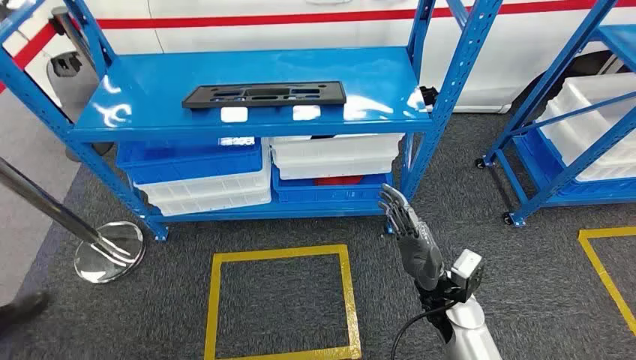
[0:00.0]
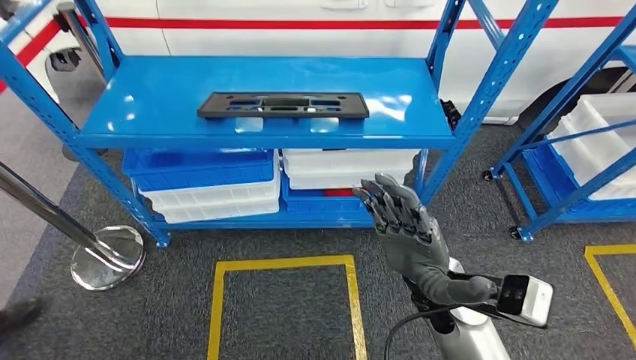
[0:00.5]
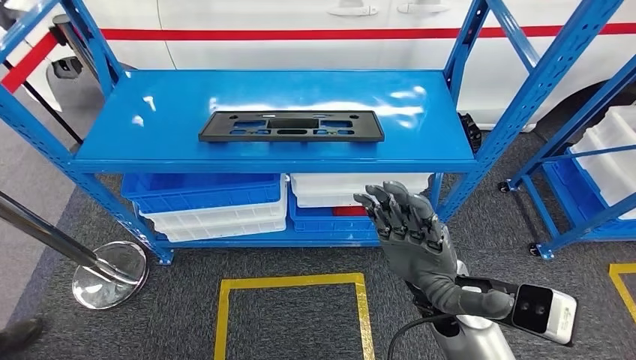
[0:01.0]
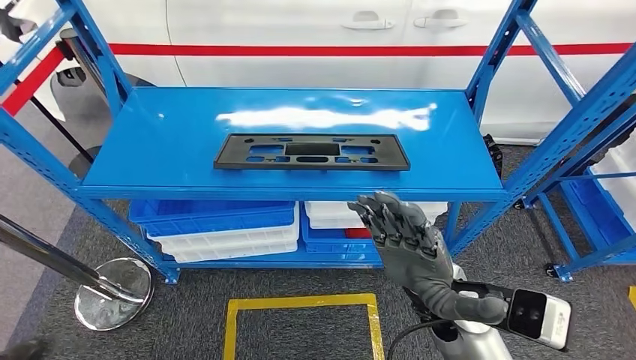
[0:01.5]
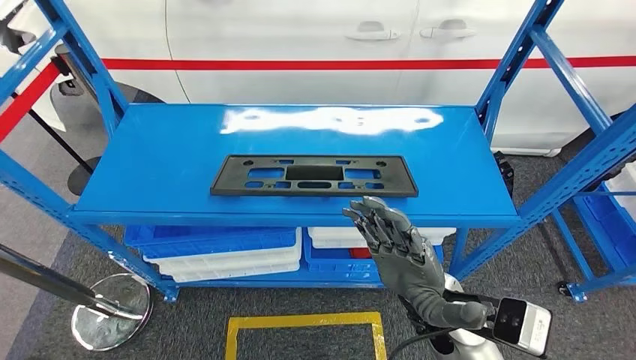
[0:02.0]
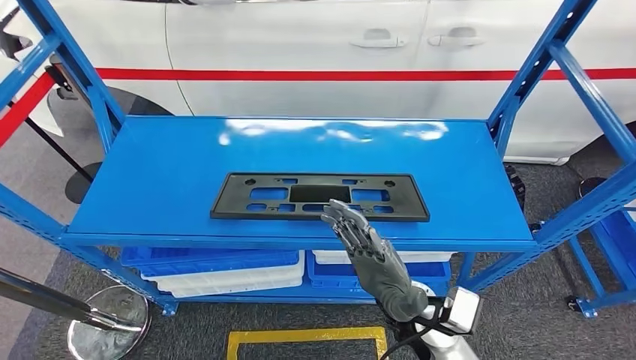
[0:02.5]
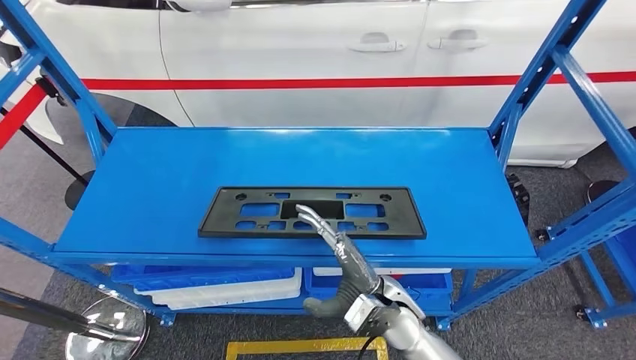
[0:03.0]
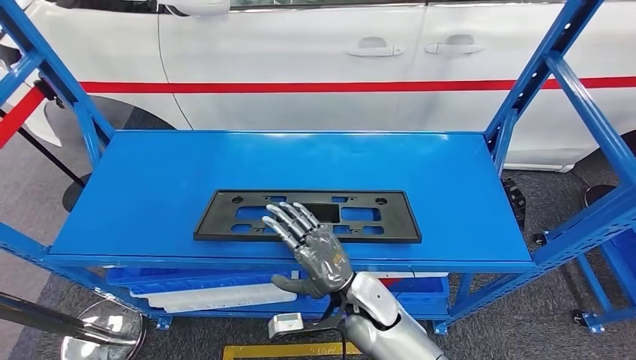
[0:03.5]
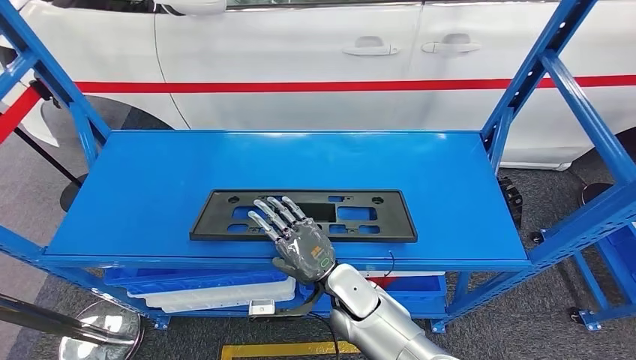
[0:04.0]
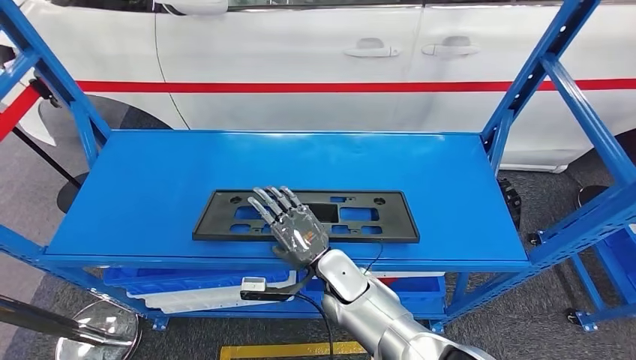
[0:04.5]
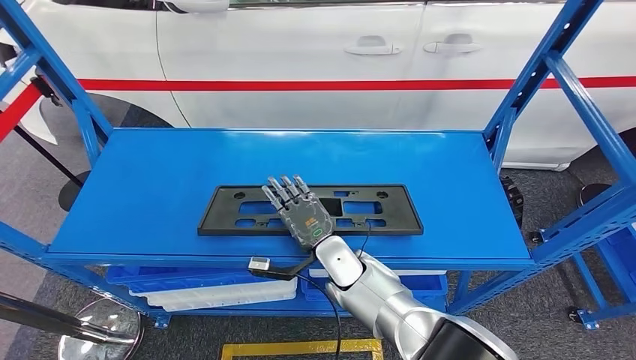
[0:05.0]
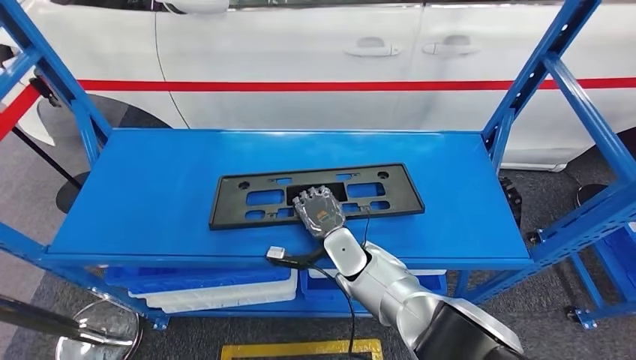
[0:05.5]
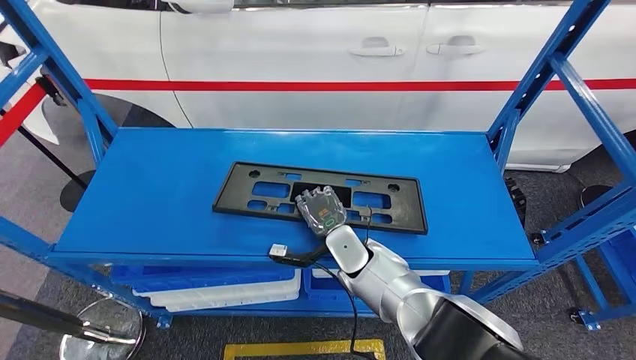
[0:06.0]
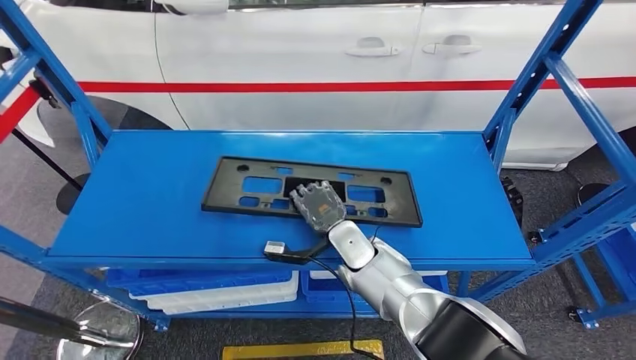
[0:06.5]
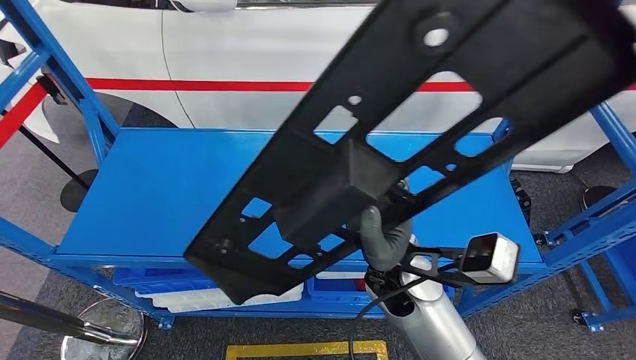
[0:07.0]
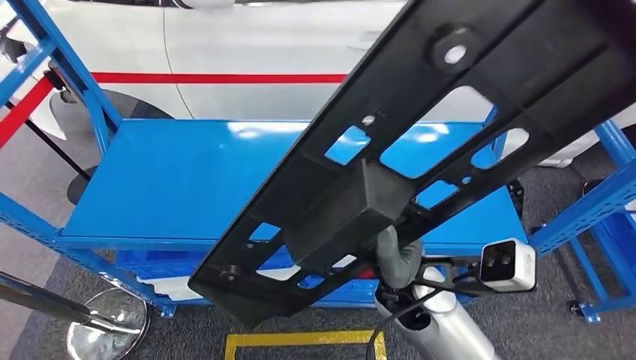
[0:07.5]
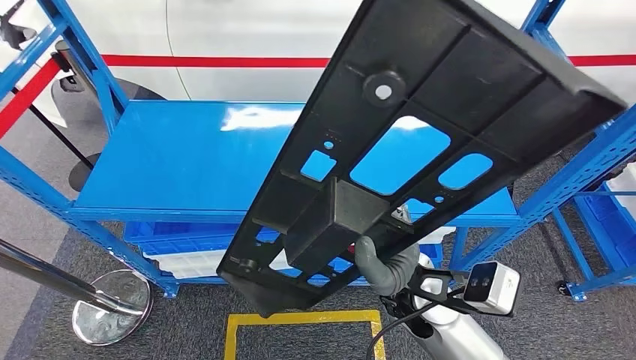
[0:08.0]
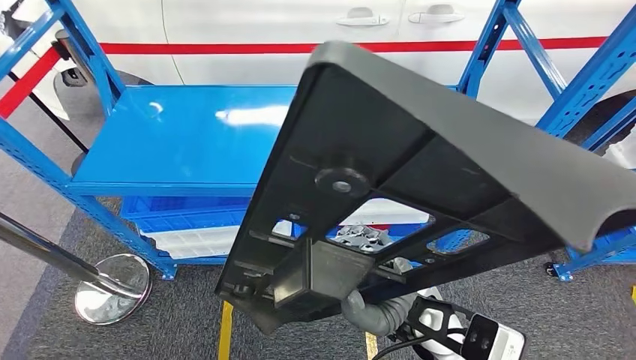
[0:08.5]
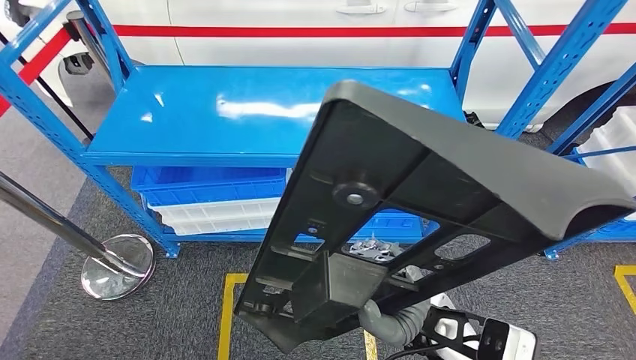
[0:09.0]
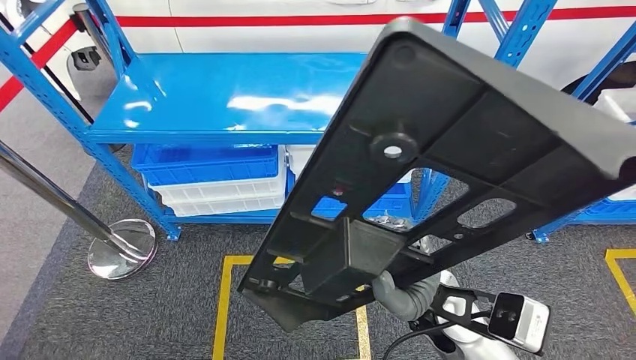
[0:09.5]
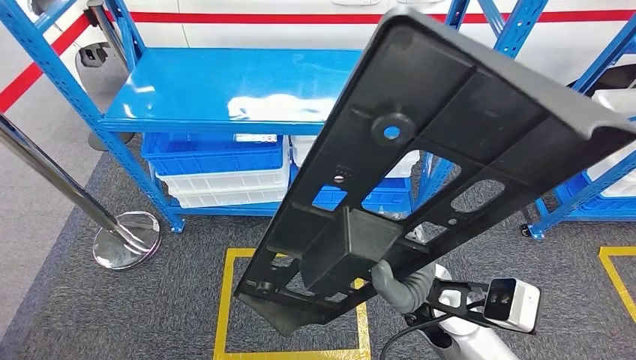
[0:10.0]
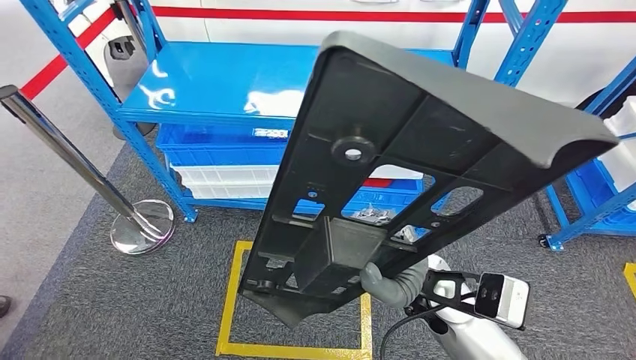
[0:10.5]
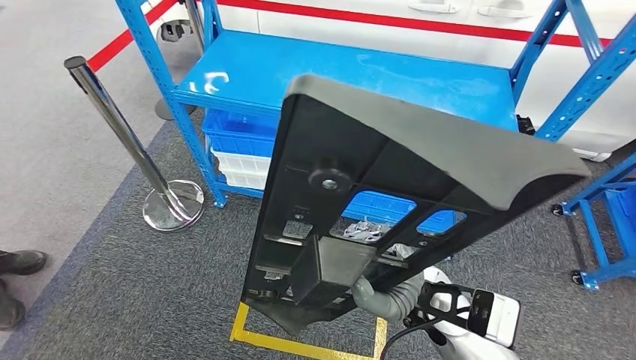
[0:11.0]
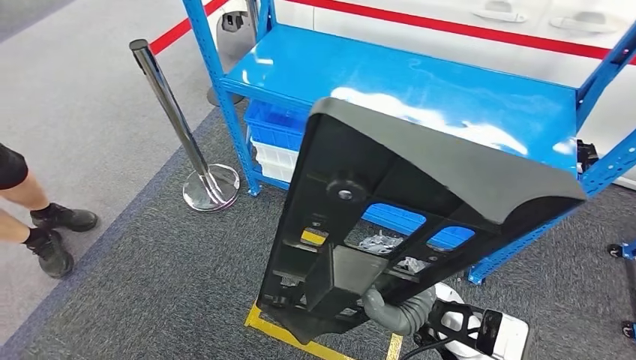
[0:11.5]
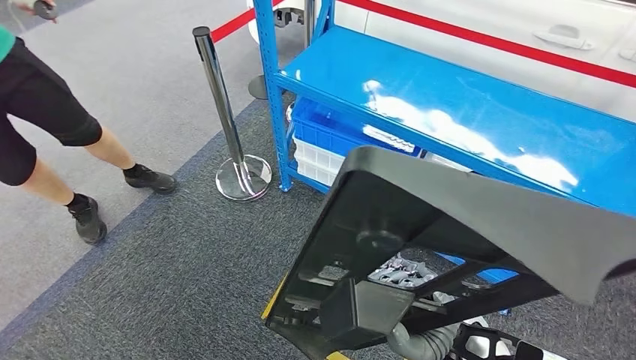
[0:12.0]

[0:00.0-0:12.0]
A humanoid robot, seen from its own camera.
Step, 0:00.0 to 0:07.5: Pick up the large material from the shelf.

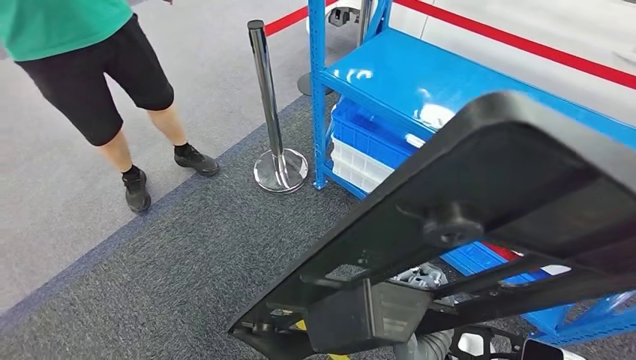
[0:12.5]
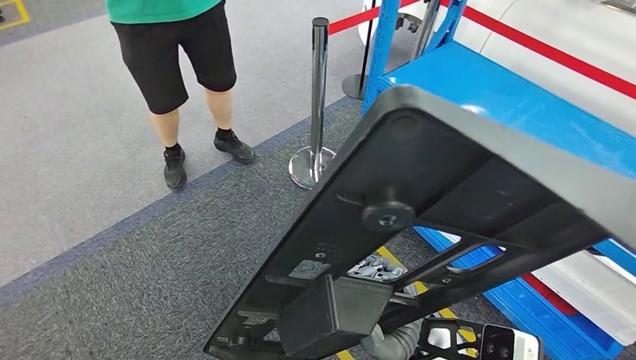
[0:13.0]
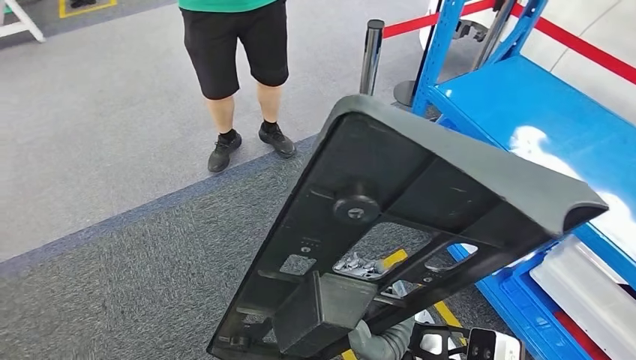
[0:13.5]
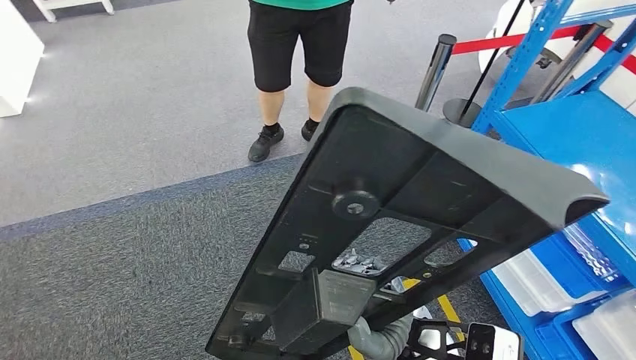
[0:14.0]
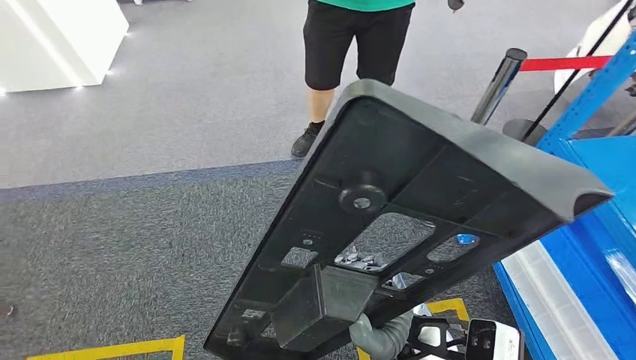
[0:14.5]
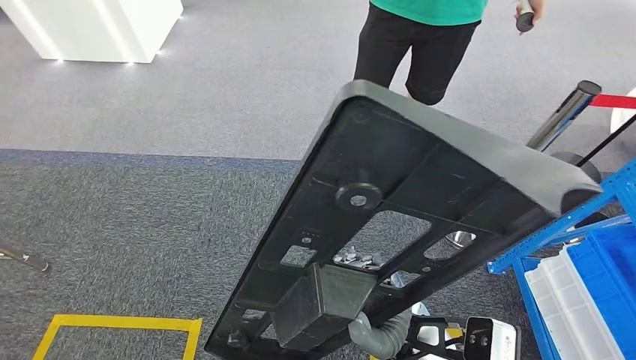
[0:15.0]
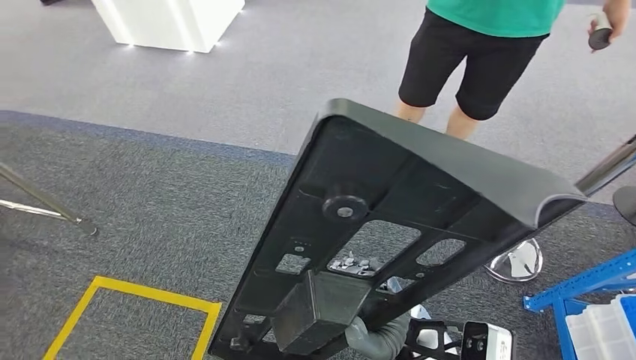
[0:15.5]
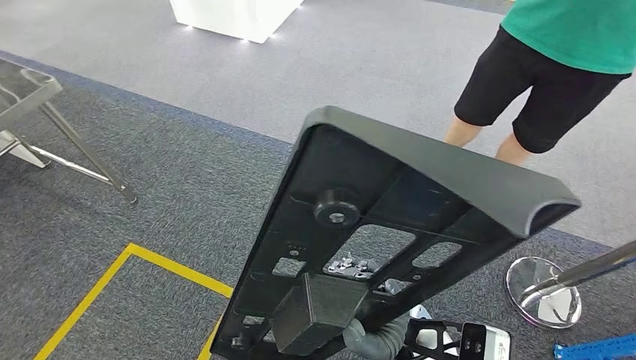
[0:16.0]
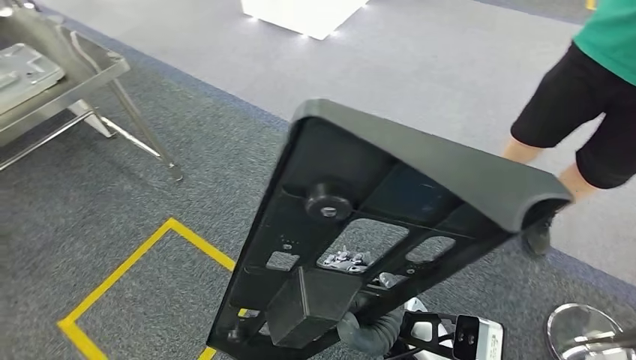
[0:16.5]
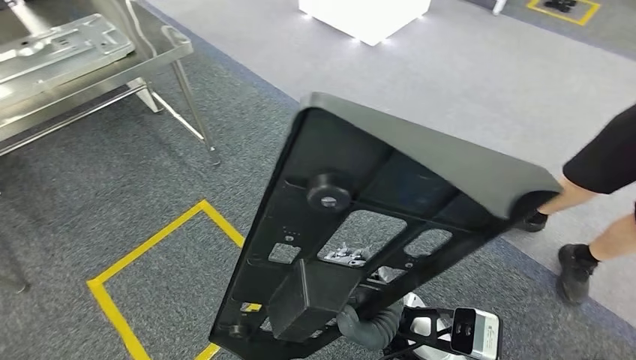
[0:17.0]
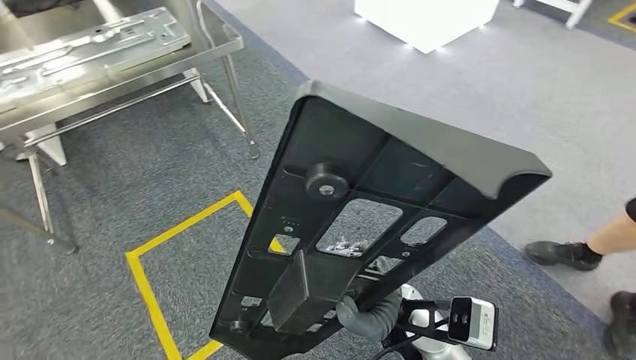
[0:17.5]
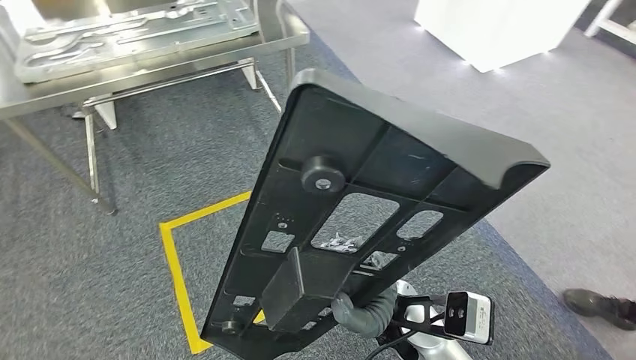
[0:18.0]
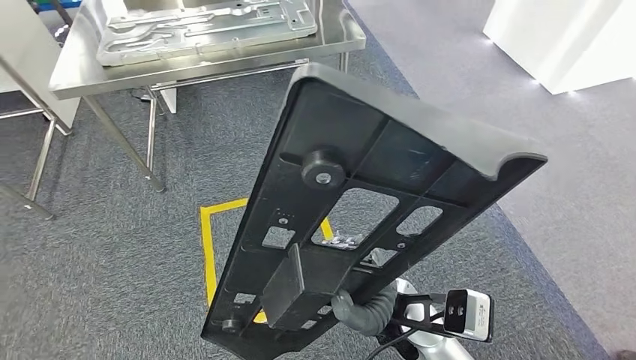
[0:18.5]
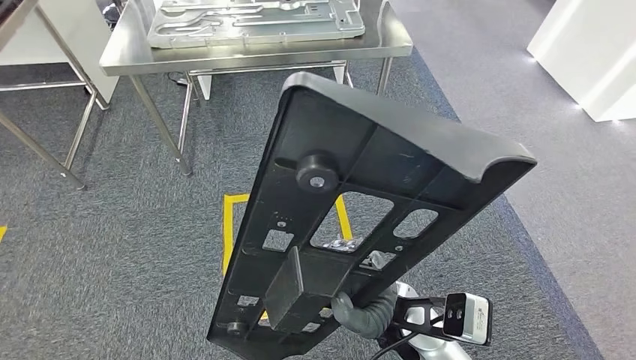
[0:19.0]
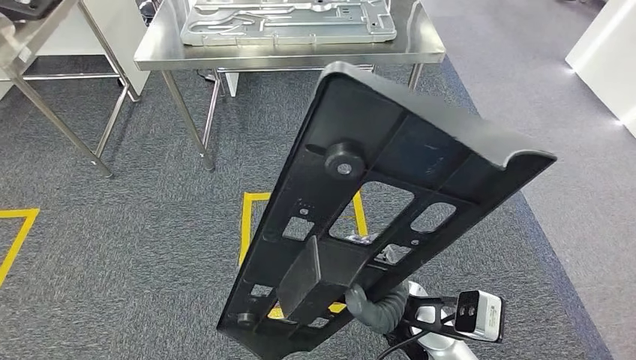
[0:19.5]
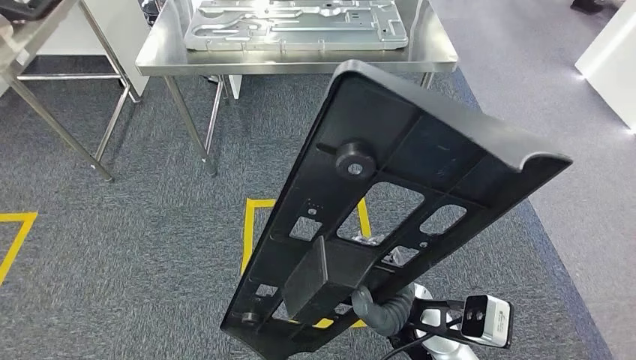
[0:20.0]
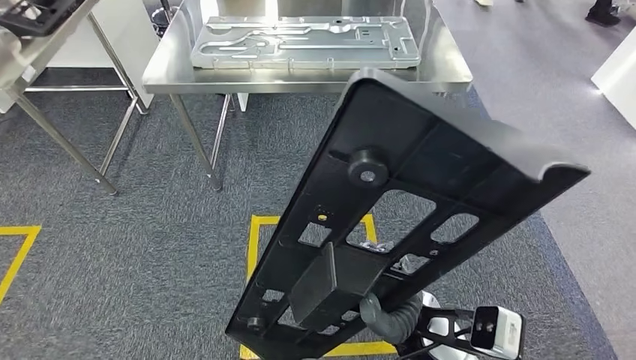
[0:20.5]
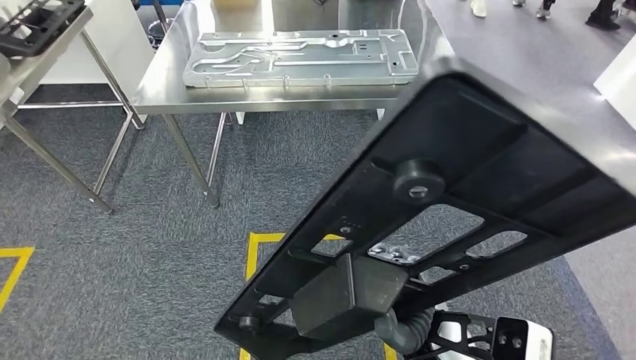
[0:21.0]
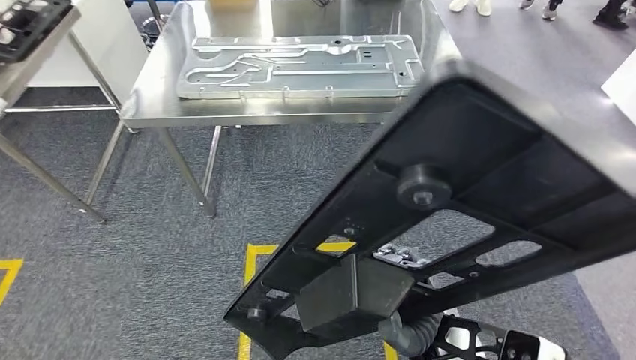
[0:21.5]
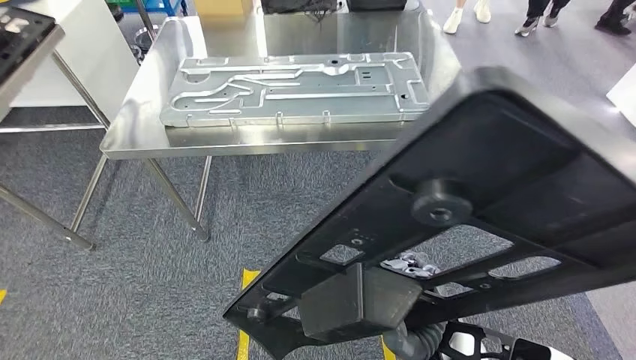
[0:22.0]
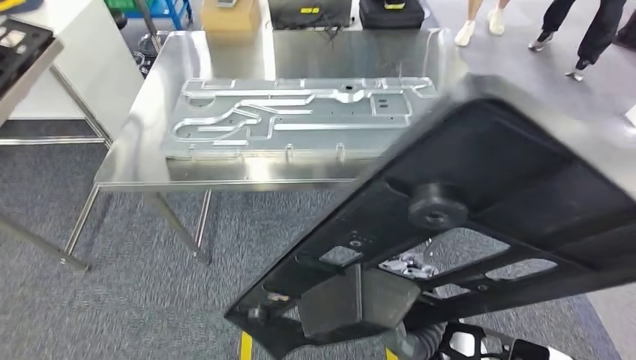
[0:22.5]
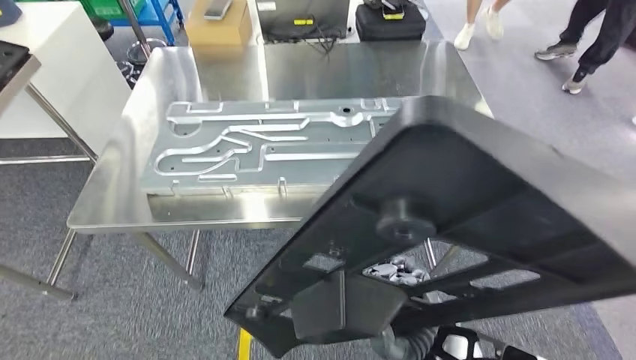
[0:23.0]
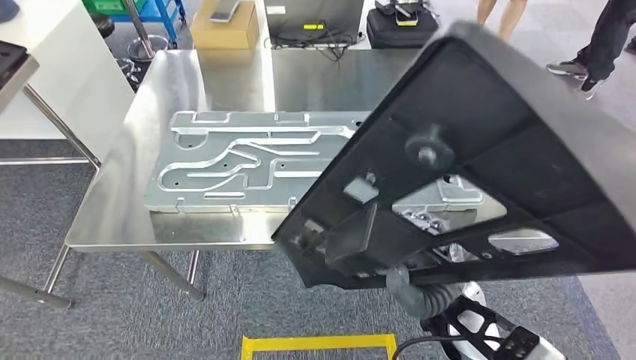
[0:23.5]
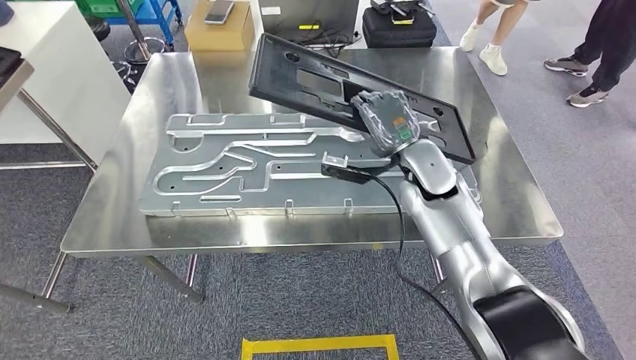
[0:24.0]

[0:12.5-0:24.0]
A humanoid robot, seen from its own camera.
Step, 0:12.5 to 0:22.5: Move the large material to the workbench.
